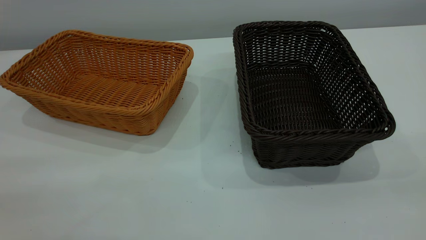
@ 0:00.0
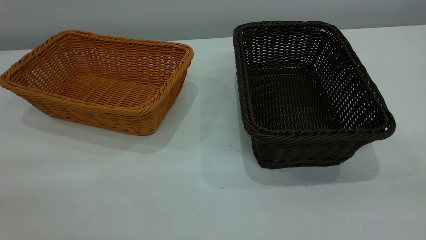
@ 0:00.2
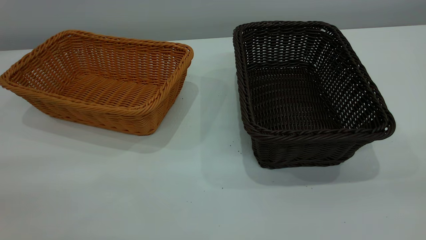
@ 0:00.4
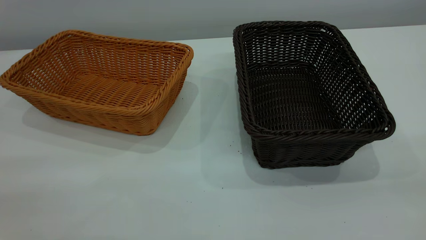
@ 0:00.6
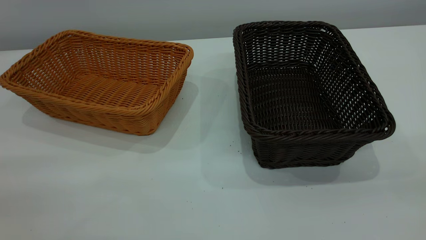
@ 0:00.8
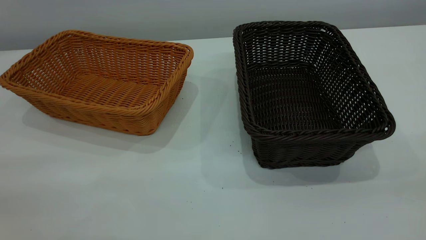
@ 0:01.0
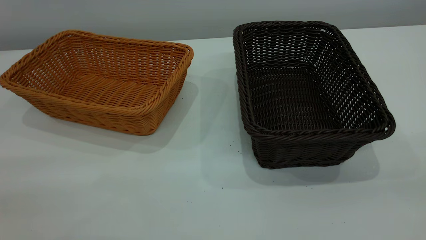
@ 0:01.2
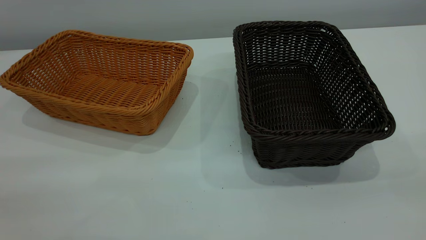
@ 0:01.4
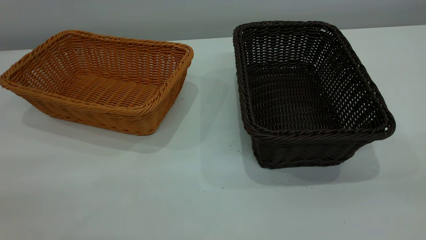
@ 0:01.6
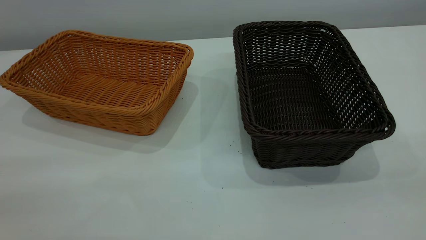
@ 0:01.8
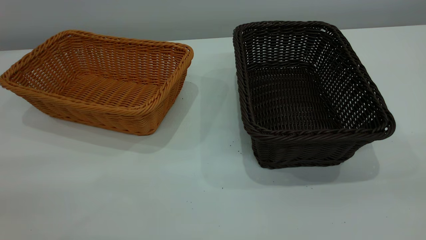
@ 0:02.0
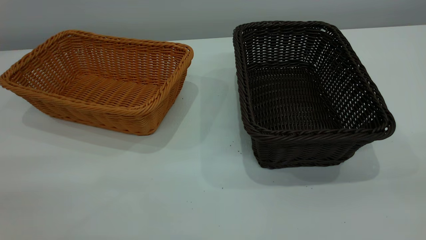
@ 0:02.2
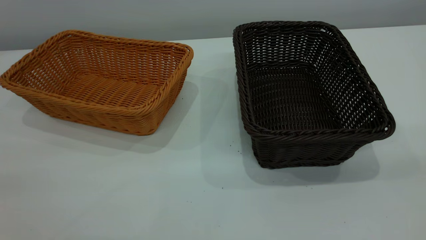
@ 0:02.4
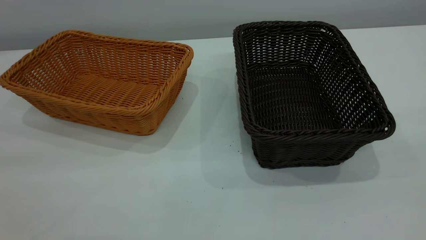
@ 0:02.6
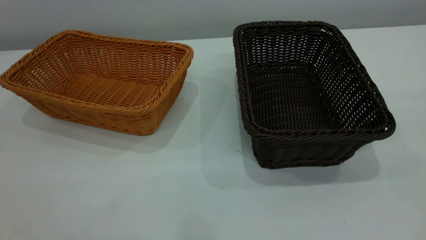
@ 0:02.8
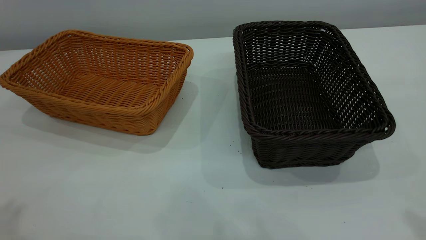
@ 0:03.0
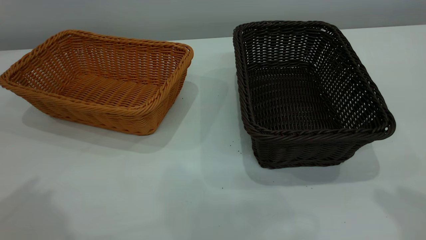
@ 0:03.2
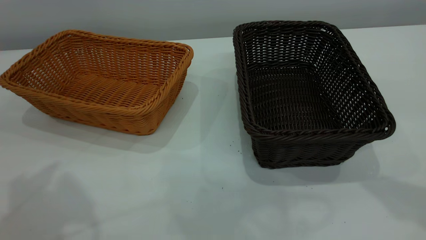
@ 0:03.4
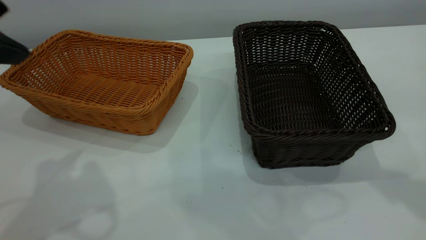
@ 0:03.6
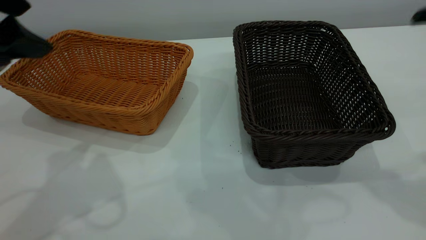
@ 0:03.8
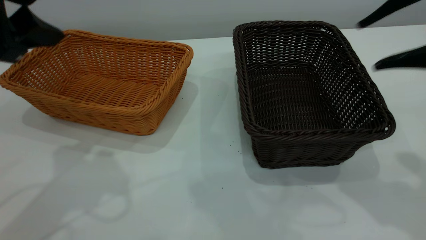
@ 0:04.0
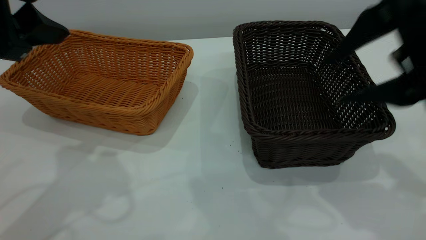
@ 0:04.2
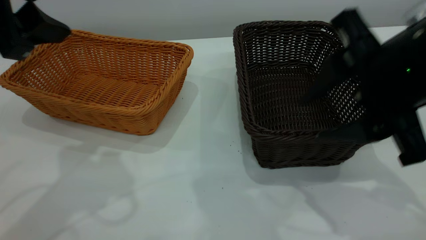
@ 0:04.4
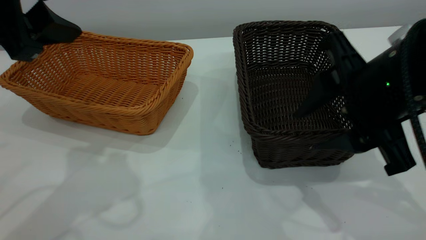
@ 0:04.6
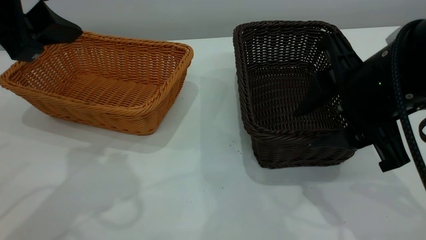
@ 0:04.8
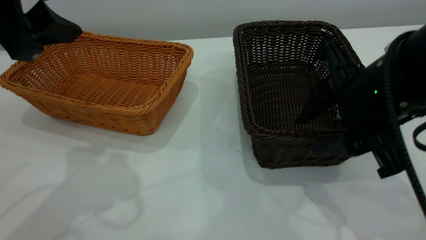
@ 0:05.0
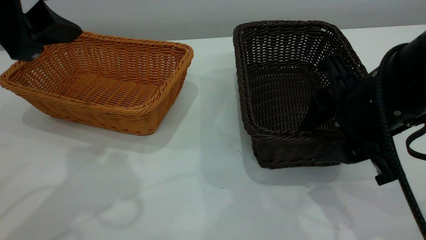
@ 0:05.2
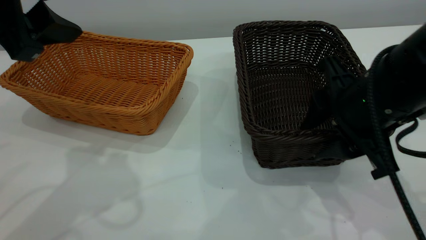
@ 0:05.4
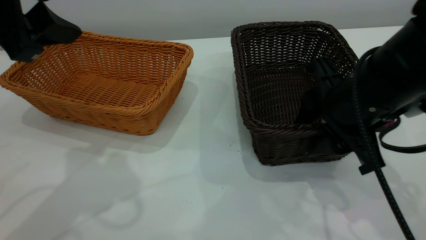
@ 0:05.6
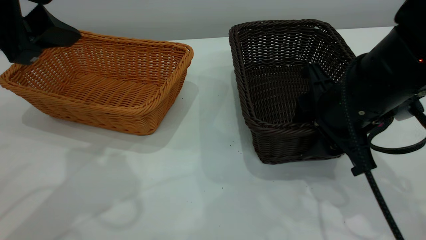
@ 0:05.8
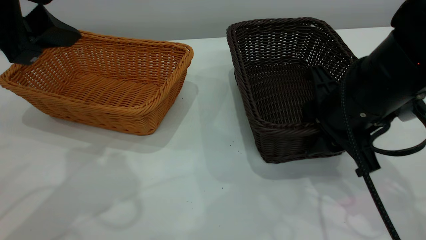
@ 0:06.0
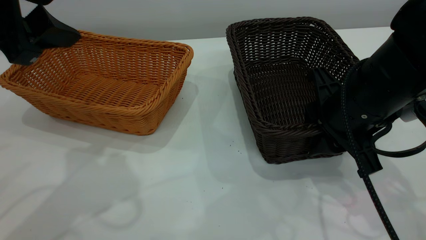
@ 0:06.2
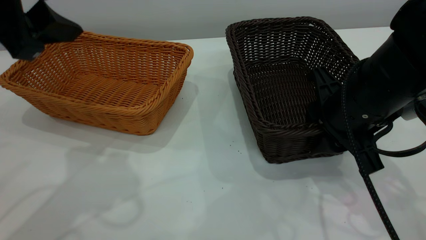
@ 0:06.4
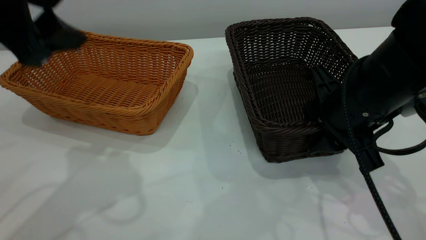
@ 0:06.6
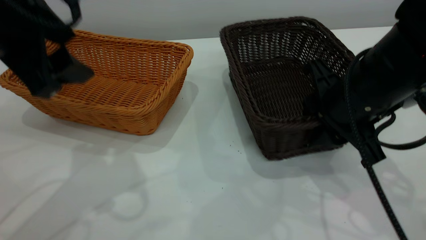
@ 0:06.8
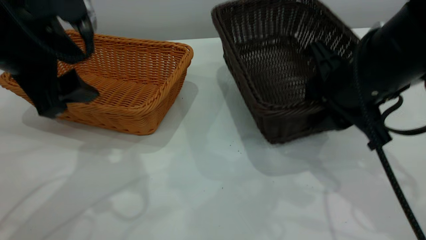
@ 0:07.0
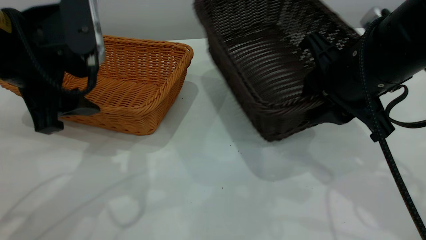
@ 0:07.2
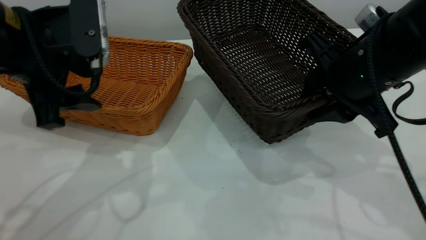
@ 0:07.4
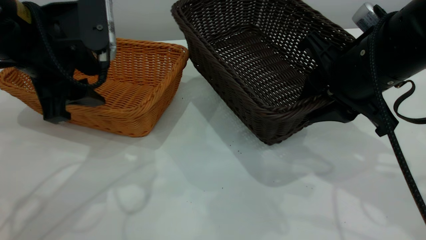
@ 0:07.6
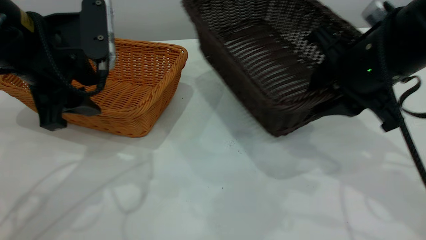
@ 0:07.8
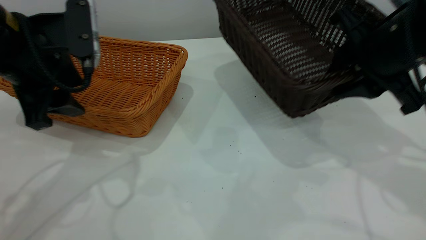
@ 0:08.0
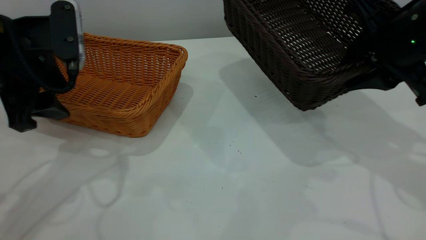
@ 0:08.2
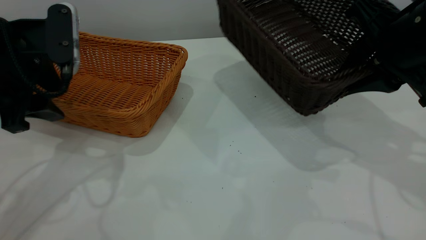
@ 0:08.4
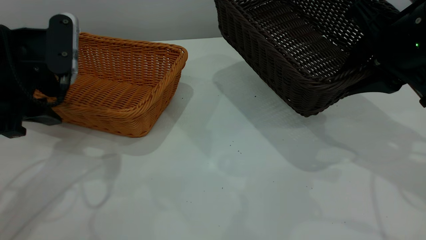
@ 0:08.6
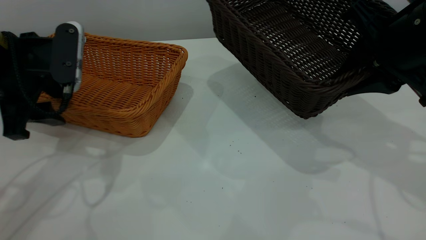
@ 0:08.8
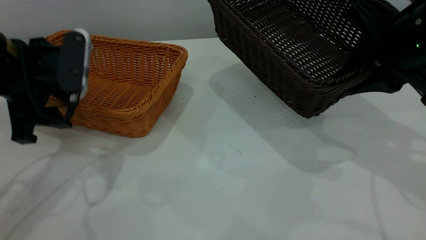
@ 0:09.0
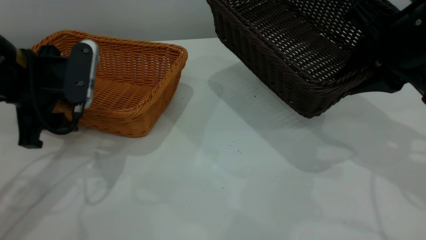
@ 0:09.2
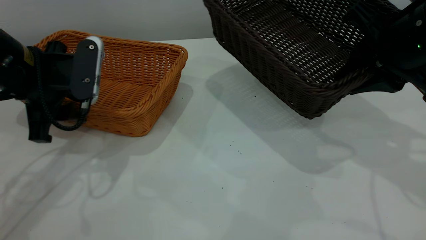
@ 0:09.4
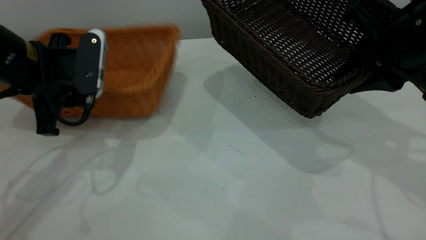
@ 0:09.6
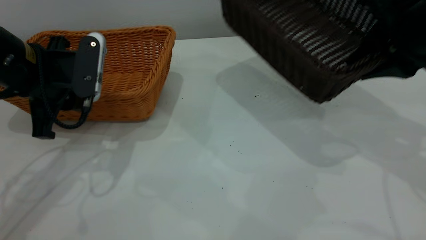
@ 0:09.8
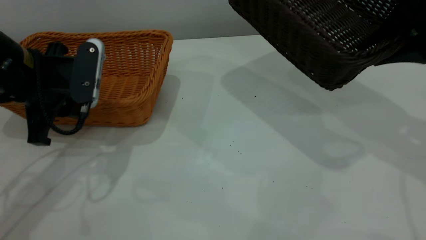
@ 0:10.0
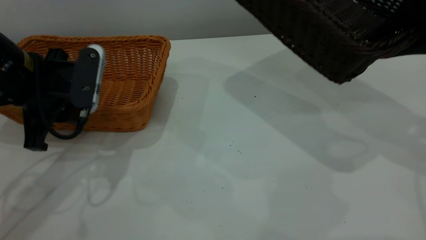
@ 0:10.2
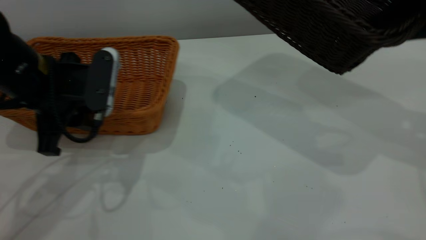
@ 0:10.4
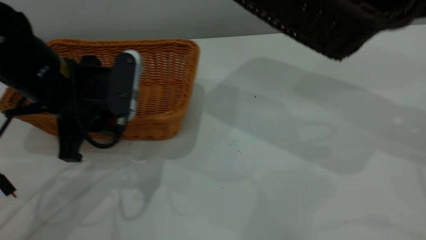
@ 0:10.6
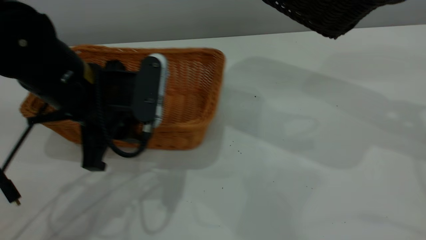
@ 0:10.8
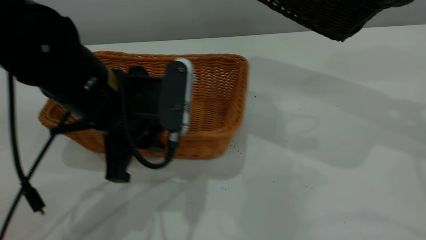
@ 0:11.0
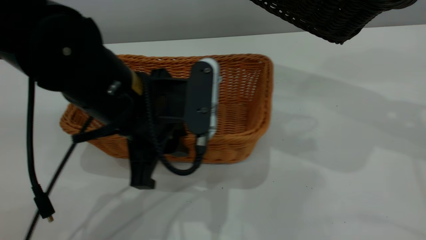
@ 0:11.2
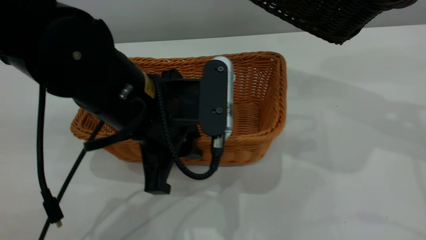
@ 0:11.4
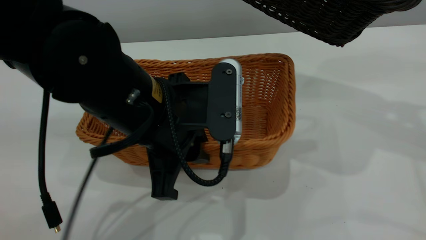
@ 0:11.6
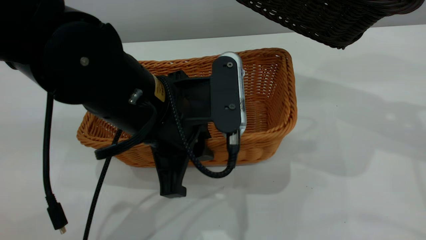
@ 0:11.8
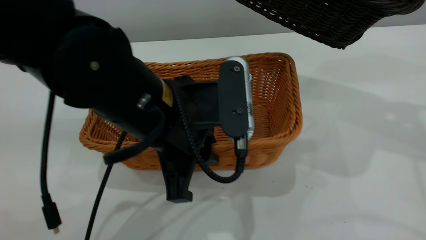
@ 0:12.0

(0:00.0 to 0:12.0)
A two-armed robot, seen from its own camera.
Task of the whole recording: the left gripper grasp the brown basket and place it in the center of the table, the right gripper grasp the black basket and place it inside the brown one.
Step, 0:00.0 - 0:07.0: Pick up the light basket with the right gripper.
0:00.0 - 0:01.6: Both grippers stay about where they are.
0:03.0 - 0:04.4: The left gripper goes roughly 15 cm forward, downward and to the right, and opens; the right gripper travels downward, to the left and forward by approximately 20 cm.
0:04.4 - 0:06.0: The right gripper goes approximately 10 cm downward and forward.
0:06.0 - 0:07.6: The left gripper travels downward by some 10 cm.
0:07.6 - 0:09.0: The right gripper moves to the right, some 5 cm. Meanwhile the left gripper shifts some 5 cm to the left.
0:09.0 - 0:10.4: The left gripper closes. Meanwhile the right gripper heads upward, covering roughly 5 cm.
0:10.4 - 0:12.0: The left gripper shifts roughly 15 cm to the right and backward.

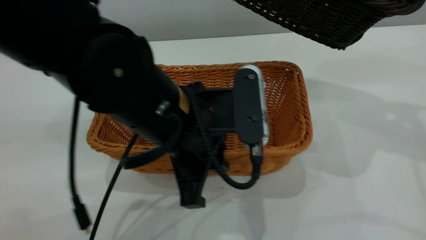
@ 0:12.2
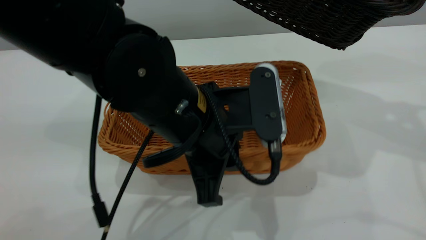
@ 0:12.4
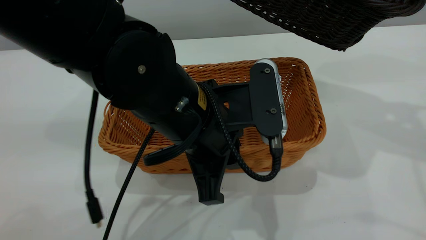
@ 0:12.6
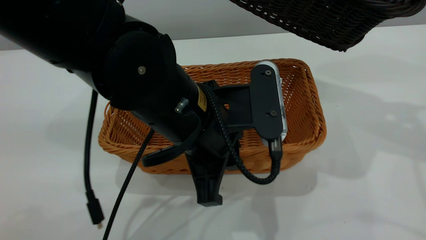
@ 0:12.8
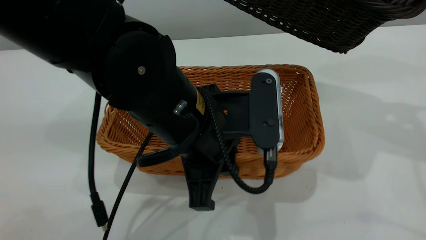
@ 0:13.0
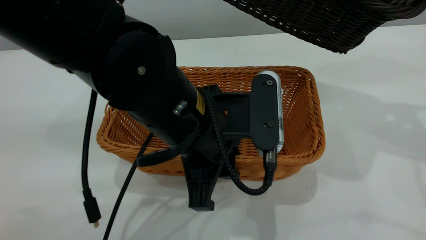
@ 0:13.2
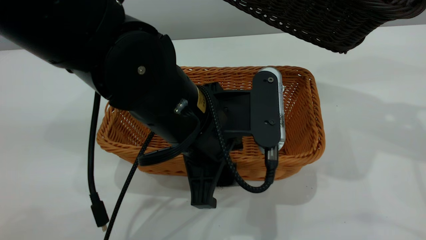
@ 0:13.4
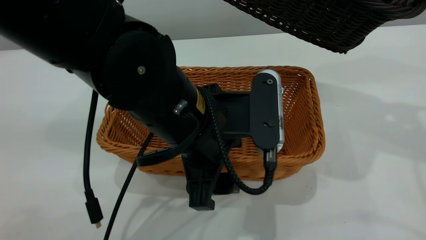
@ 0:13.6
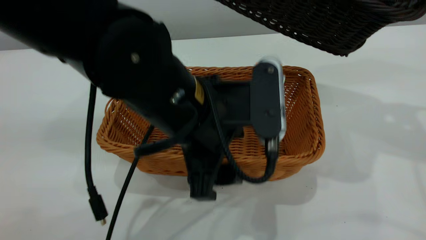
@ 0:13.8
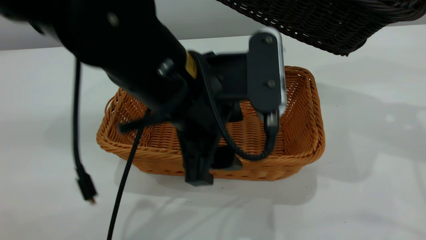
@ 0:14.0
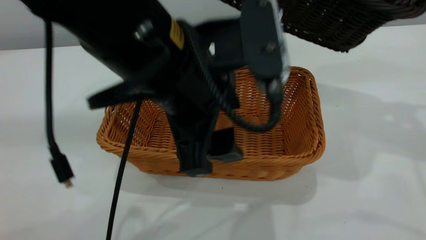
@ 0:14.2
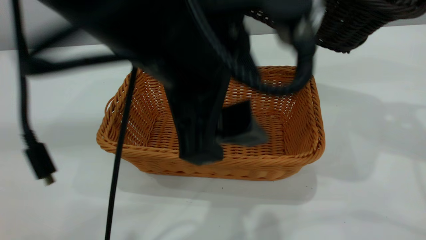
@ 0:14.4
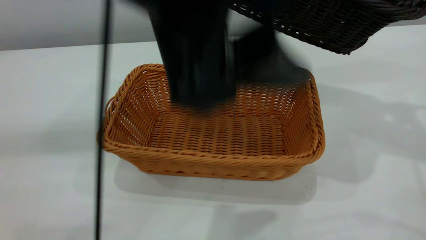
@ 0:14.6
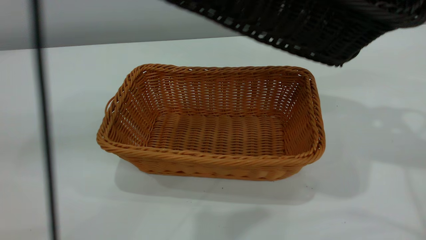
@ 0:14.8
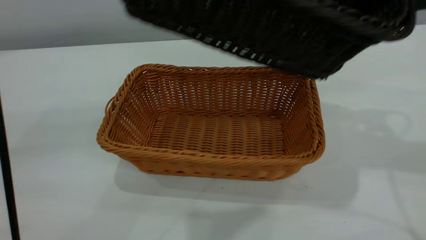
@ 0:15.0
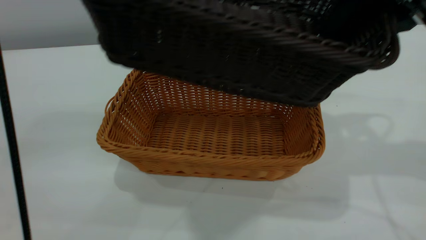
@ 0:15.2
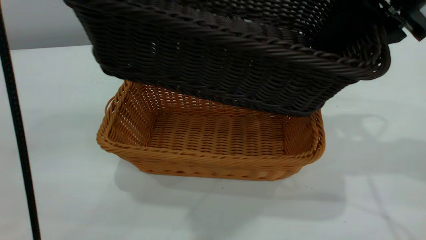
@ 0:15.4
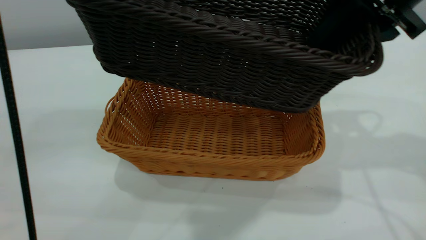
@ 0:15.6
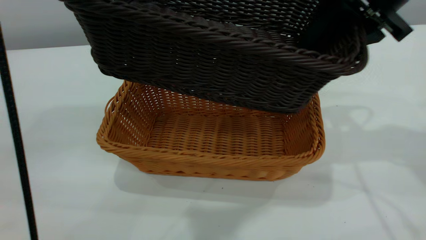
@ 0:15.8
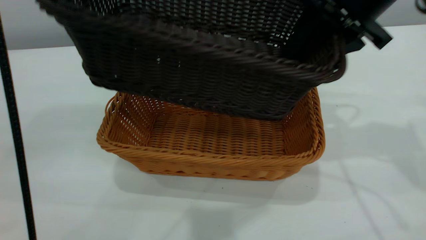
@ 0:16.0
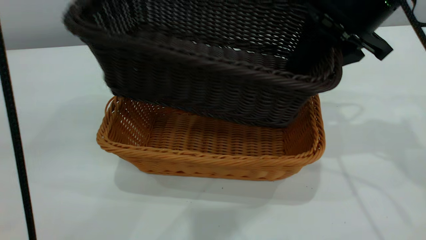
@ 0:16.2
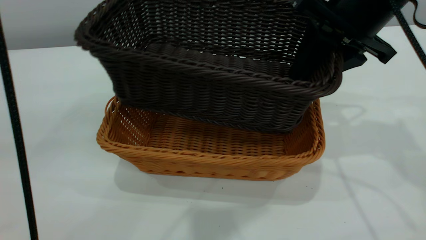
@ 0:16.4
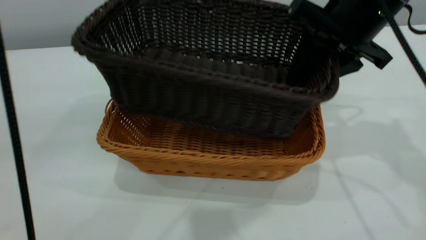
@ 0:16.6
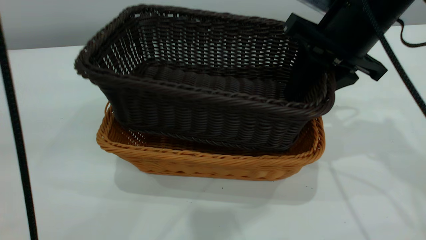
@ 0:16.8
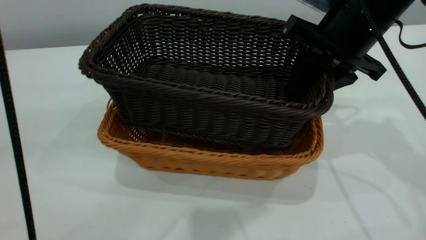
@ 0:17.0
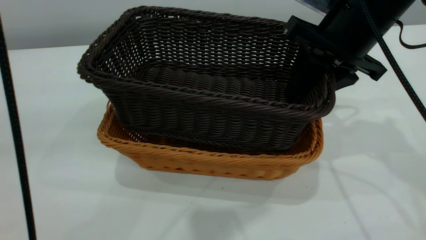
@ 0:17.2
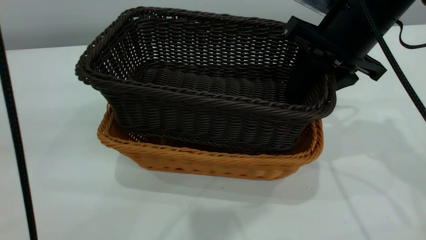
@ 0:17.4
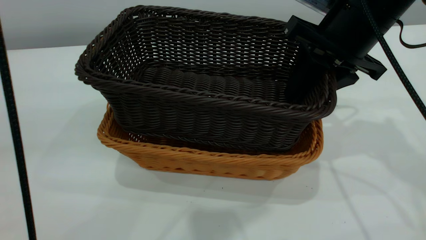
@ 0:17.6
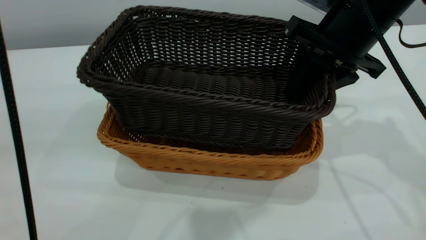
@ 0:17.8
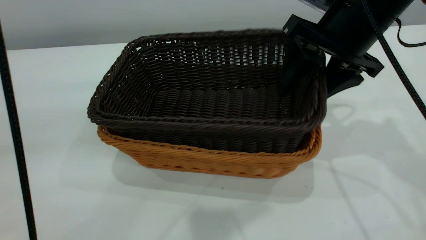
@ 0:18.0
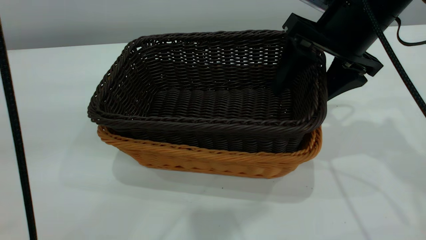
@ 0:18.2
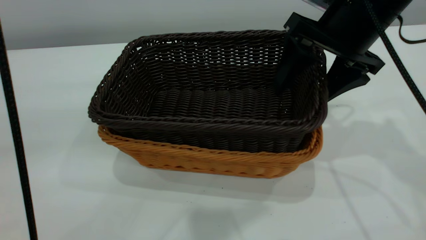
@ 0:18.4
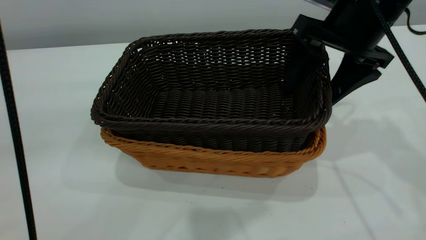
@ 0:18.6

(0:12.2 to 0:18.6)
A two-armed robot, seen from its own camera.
Task of the whole recording: the left gripper grasp the brown basket and place it in the center of the table, the right gripper grasp the black basket and place it inside the brown one.
0:12.2 - 0:13.8: The left gripper opens its fingers.
0:13.8 - 0:15.4: The left gripper goes roughly 25 cm upward. Meanwhile the right gripper travels to the left by approximately 5 cm.
0:15.4 - 0:17.0: The right gripper heads downward, covering roughly 5 cm.
0:17.0 - 0:18.6: The right gripper opens up.
